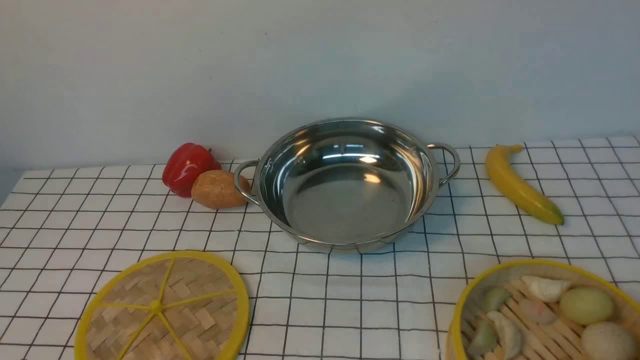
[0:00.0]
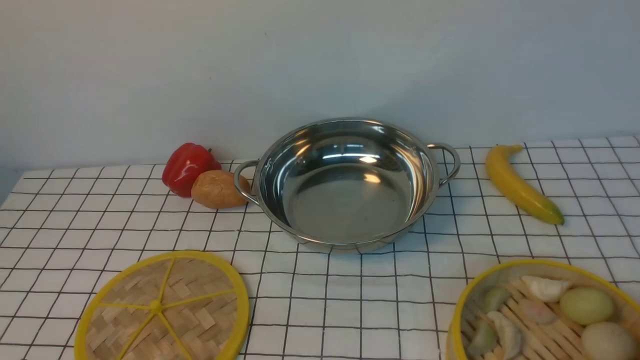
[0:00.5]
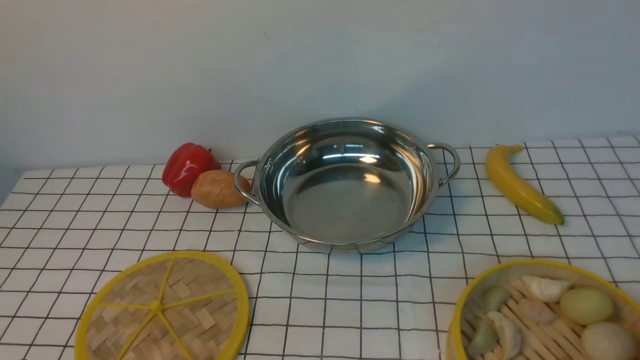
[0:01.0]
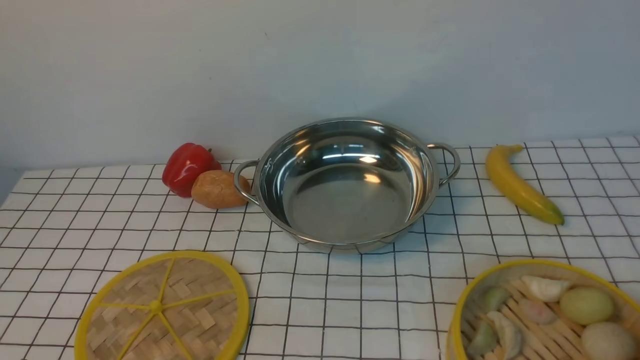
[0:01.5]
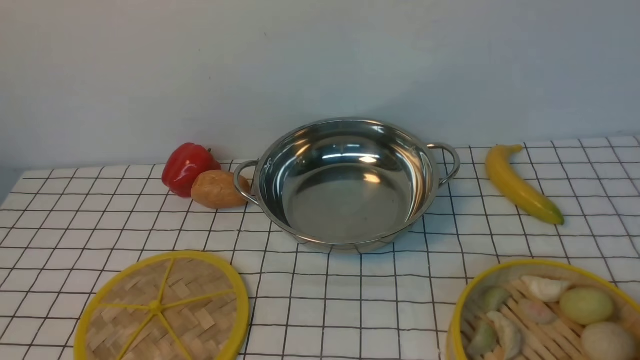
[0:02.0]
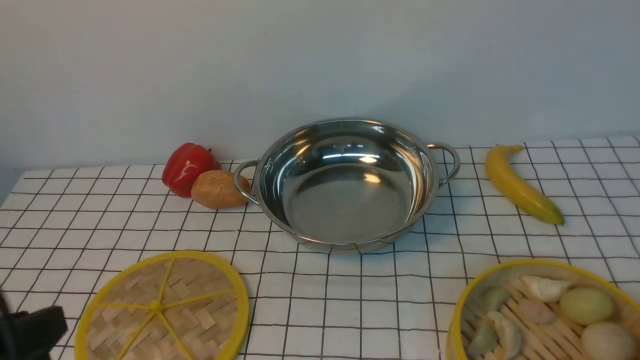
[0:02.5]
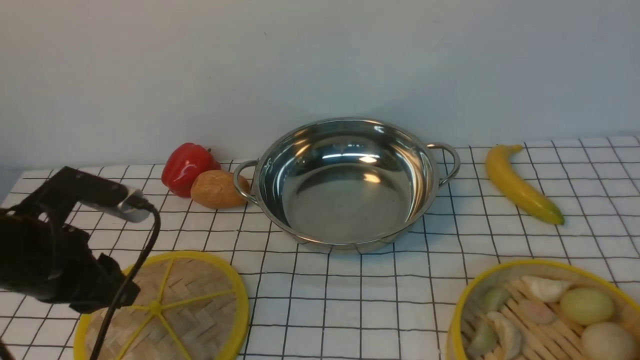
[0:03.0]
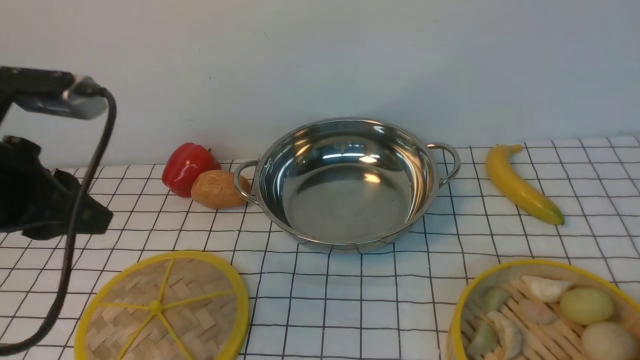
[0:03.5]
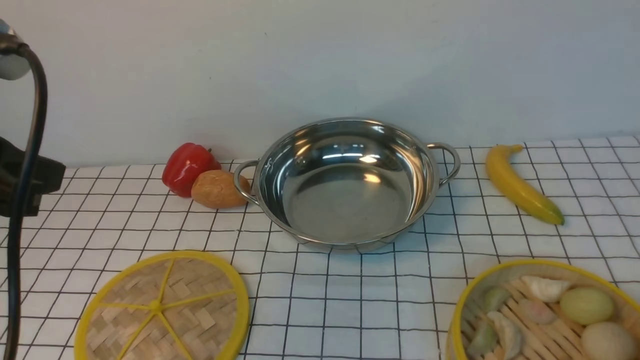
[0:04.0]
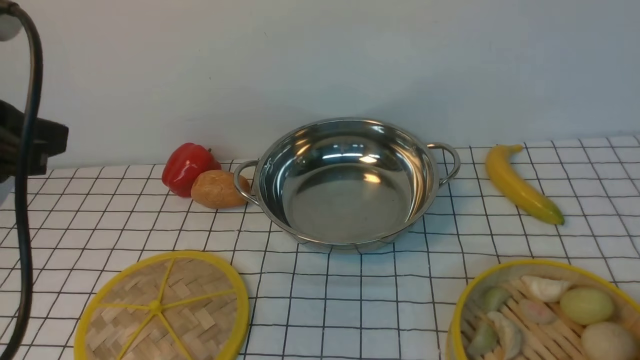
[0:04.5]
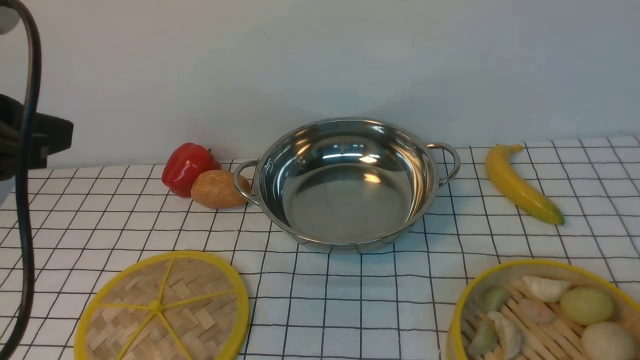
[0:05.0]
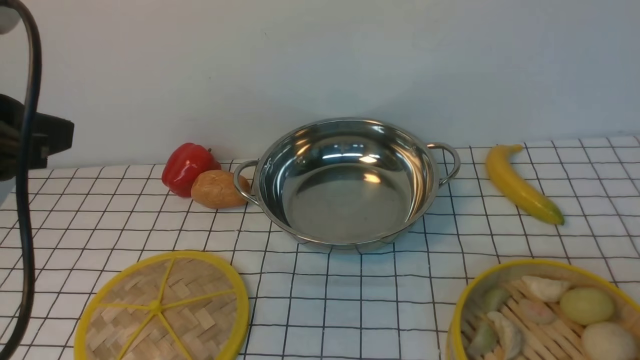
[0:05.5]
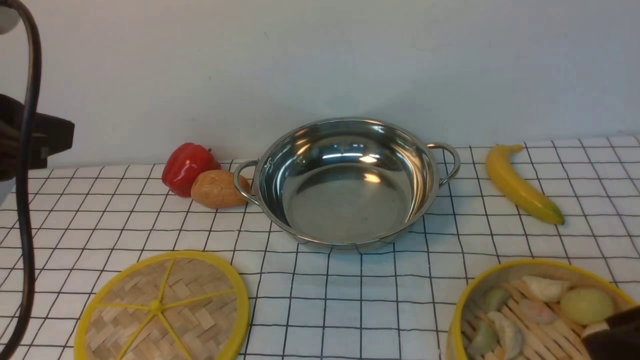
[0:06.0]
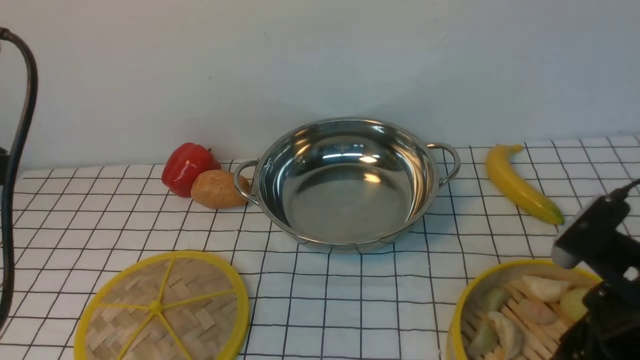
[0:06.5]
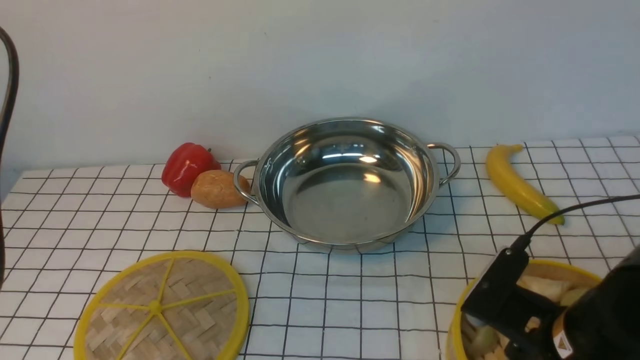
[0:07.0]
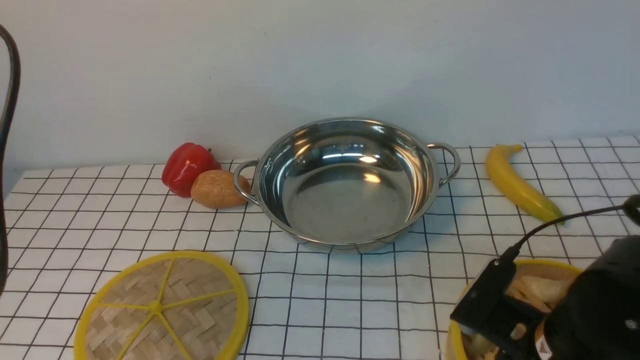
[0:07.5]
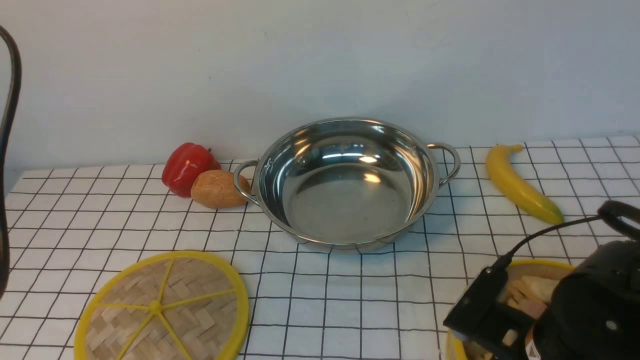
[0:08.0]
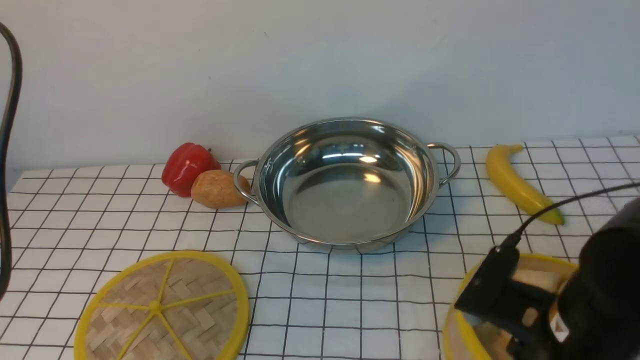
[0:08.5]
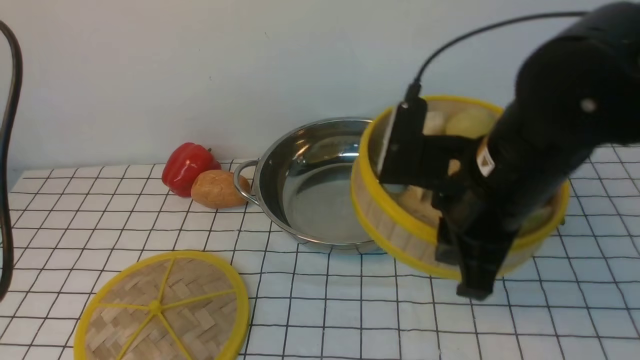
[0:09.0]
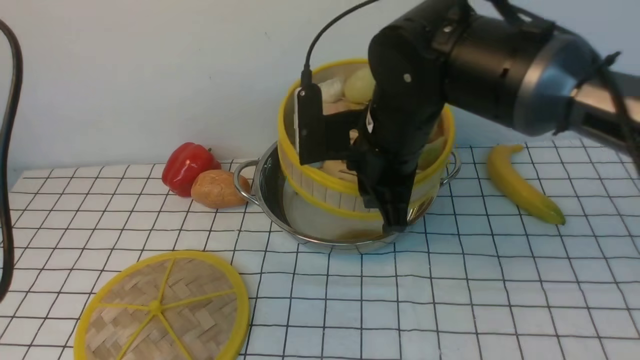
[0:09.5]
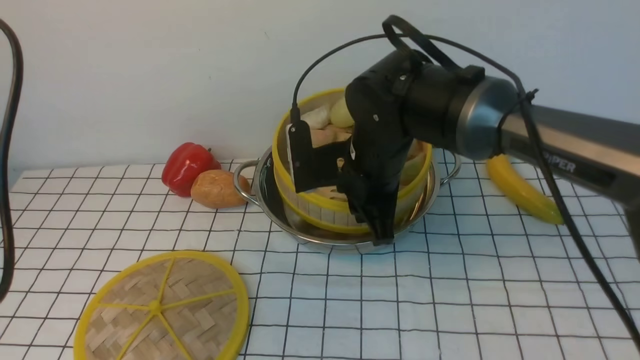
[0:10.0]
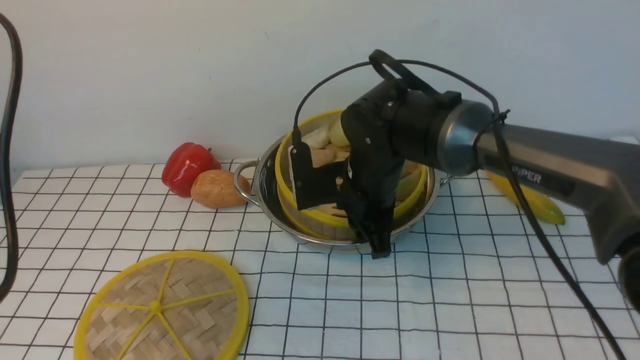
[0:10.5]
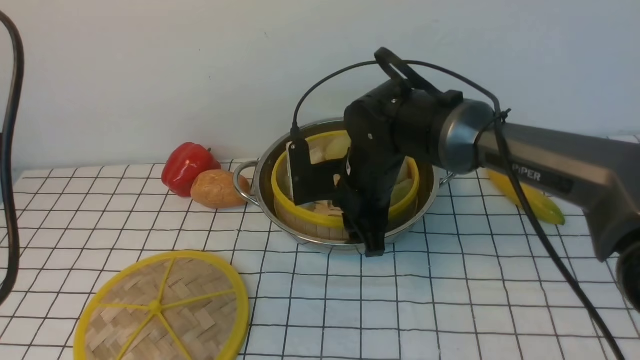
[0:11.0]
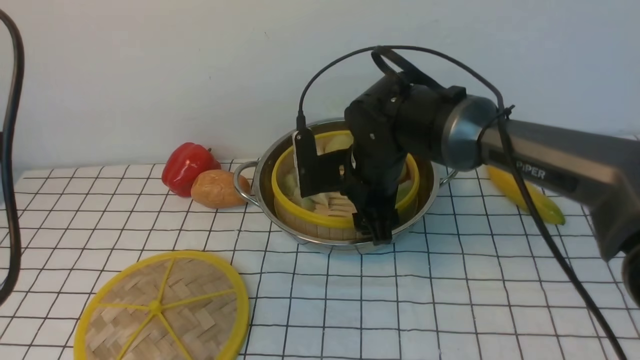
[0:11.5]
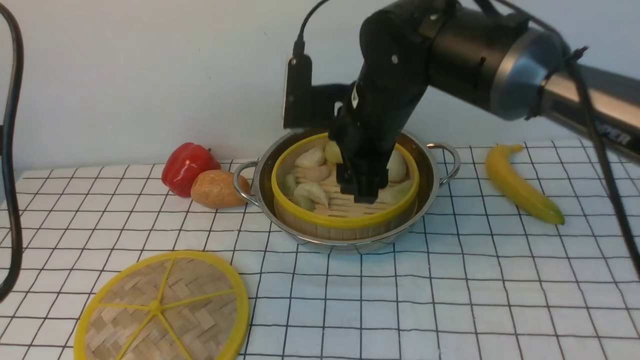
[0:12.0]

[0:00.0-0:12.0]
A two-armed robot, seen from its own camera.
Task of the whole recording: place the steamer in the pot on the white tablecloth, and put the lid on the steamer.
Step, 0:00.0 to 0:08.5: use the right arm to lift the steamer closest to it.
Step, 0:09.0 to 0:11.5: use the right arm to put the steamer into the iron steamer pot in the middle.
0:02.0 to 0:04.0: The left gripper is displaced upward and forward by about 20 cm, and closes.
0:04.0 to 0:06.0: The left gripper opens. Meanwhile the right gripper travels upward, forward and to the left by approximately 15 cm.
0:06.0 to 0:08.0: The right gripper moves downward, to the left and forward, approximately 15 cm.
0:08.0 to 0:10.0: The right gripper goes approximately 20 cm forward and to the left, and closes.
0:10.0 to 0:12.0: The right gripper heads upward, covering some 10 cm, and opens up.

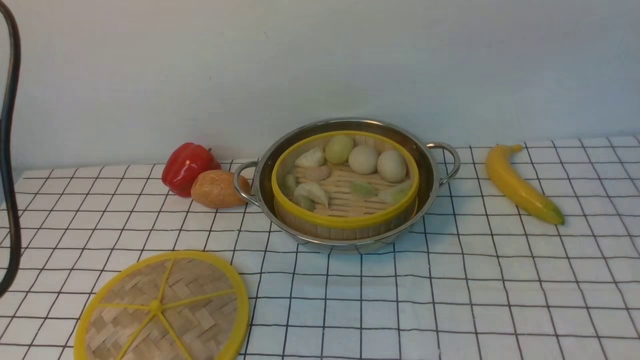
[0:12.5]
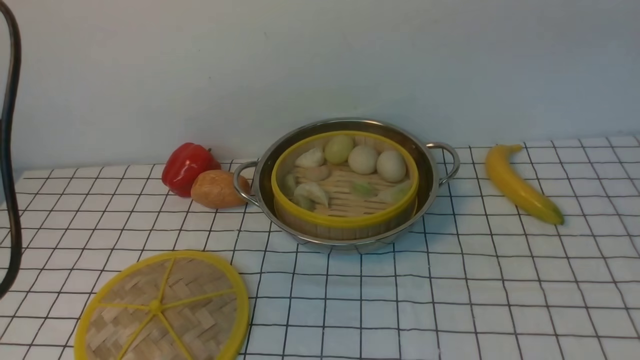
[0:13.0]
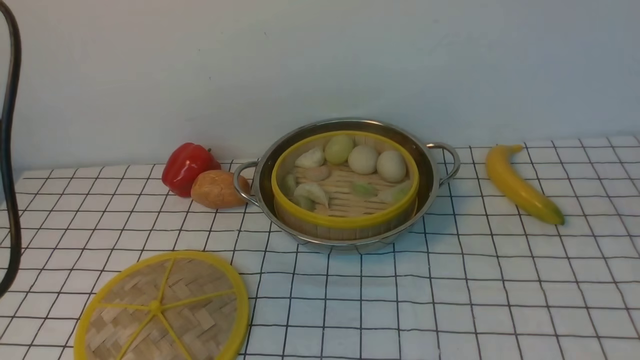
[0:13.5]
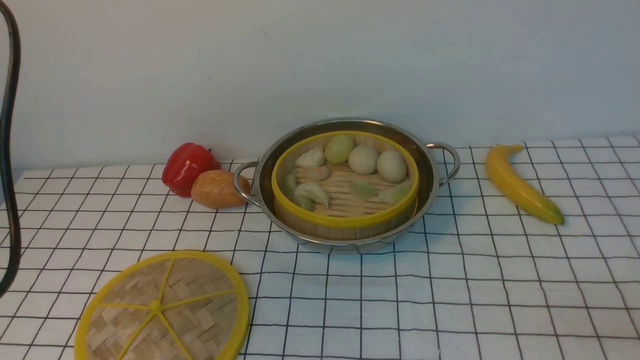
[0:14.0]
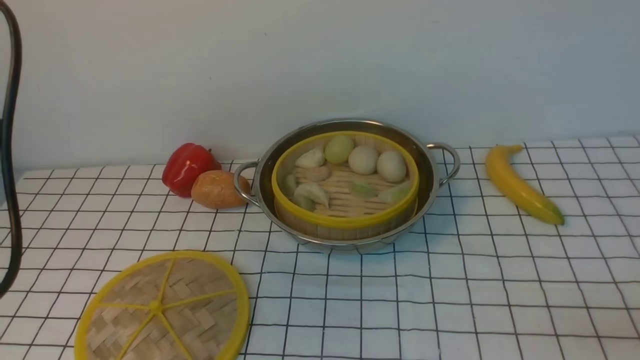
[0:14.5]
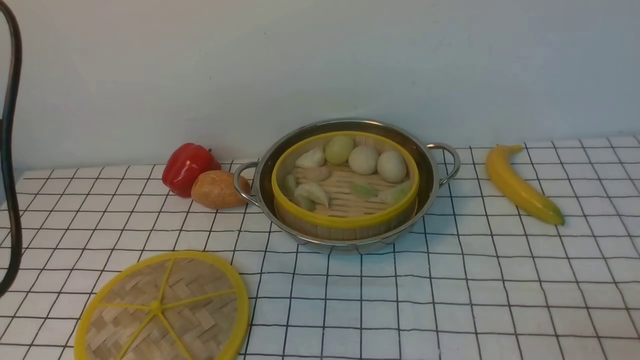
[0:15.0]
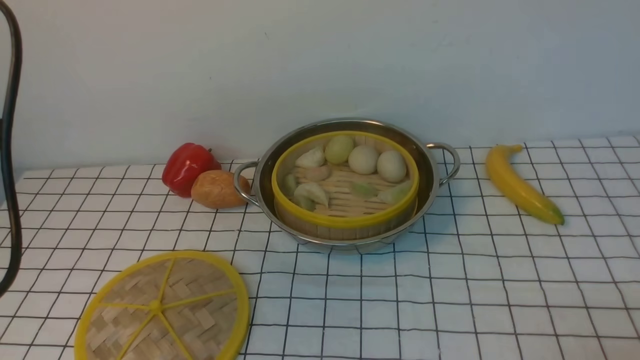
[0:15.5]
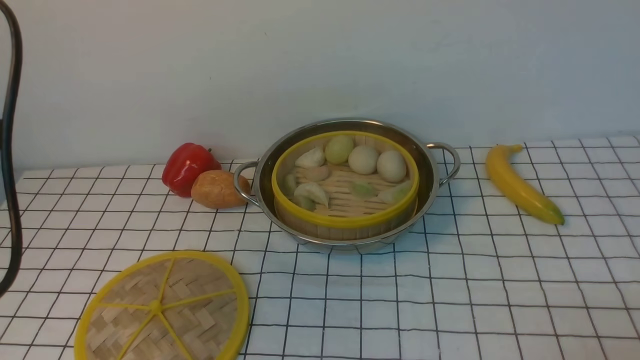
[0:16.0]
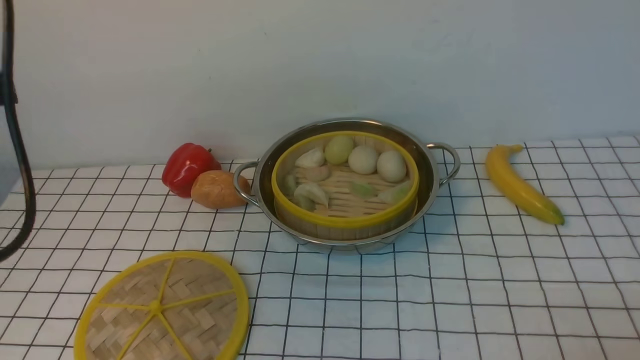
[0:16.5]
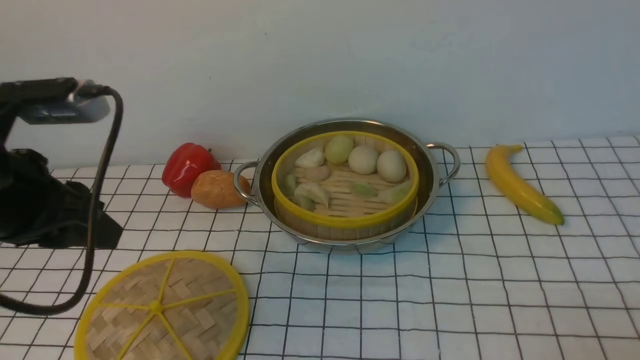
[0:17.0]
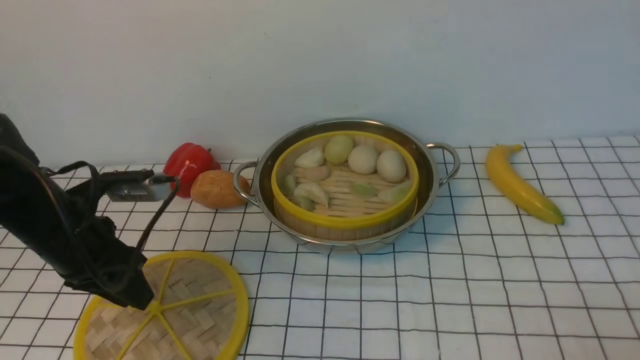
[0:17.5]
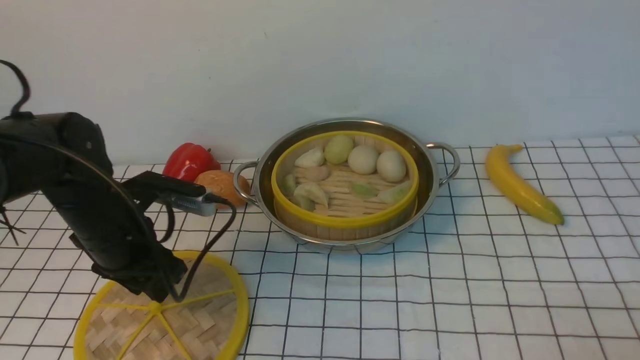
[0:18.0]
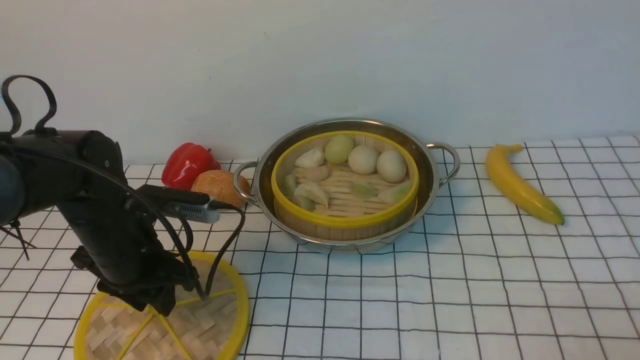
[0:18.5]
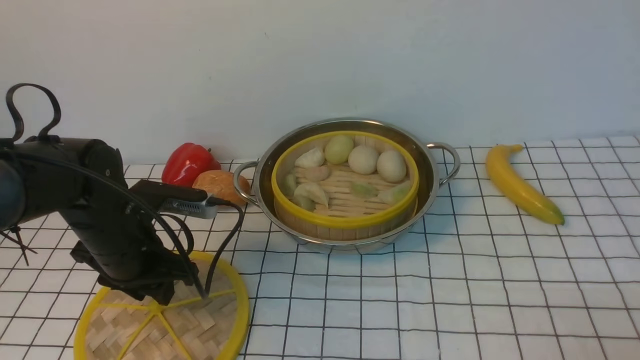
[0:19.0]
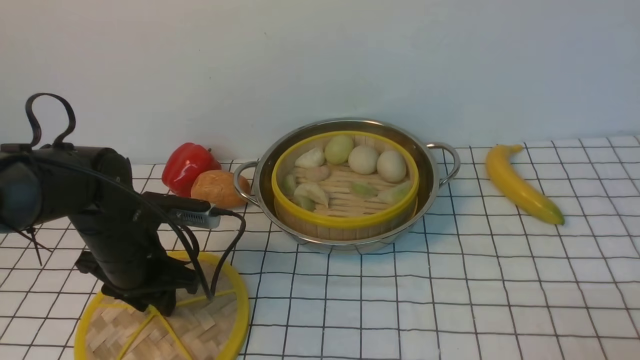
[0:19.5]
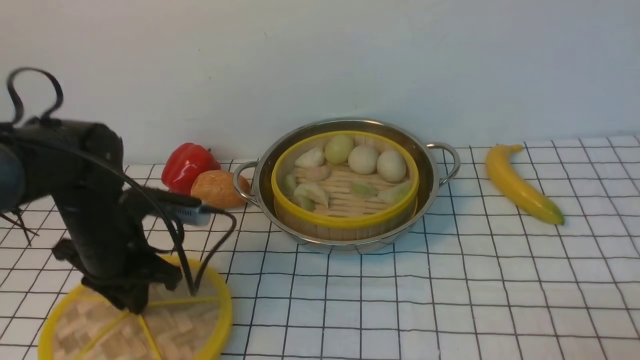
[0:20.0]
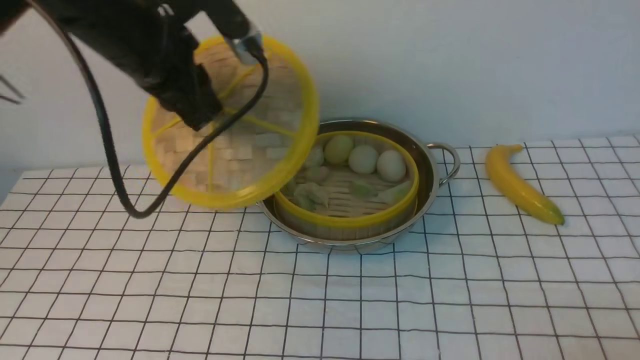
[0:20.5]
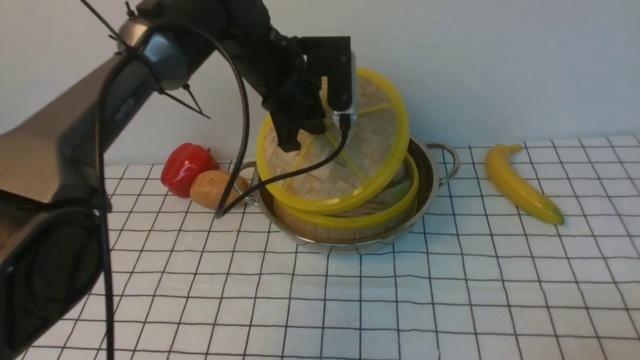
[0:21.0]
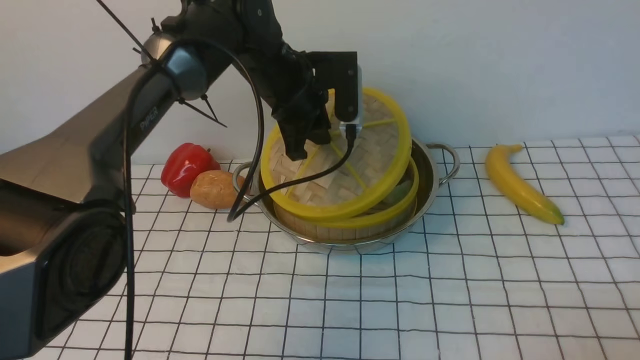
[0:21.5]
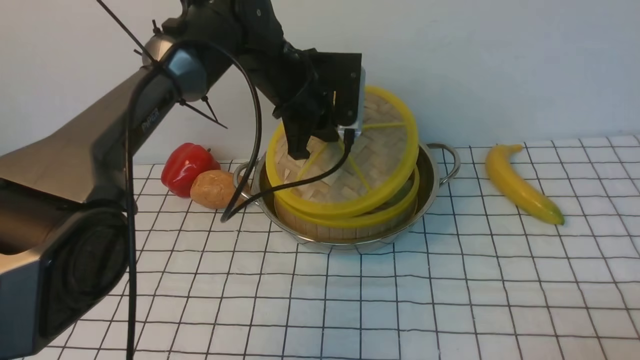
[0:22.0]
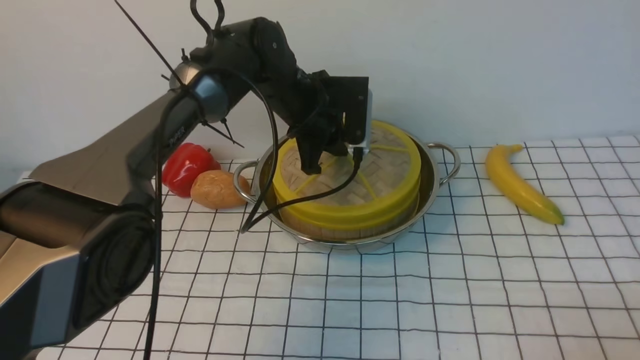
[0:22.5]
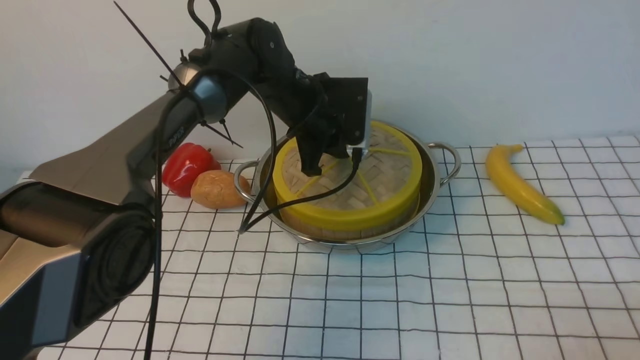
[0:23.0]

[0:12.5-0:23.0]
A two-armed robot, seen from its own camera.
Task of the whole recording: place the steamer in the pot on the white tablecloth, and put the lid on the steamer.
Step, 0:12.5 to 0:19.5: use the left arm to lift the lid of the steamer.
0:16.5 to 0:19.0: The left gripper goes some 25 cm downward and forward.
0:19.0 to 0:21.0: The left gripper is displaced to the right, forward and upward by about 25 cm, and closes its fingers.
0:21.0 to 0:23.0: The left gripper heads downward, covering roughly 5 cm.
